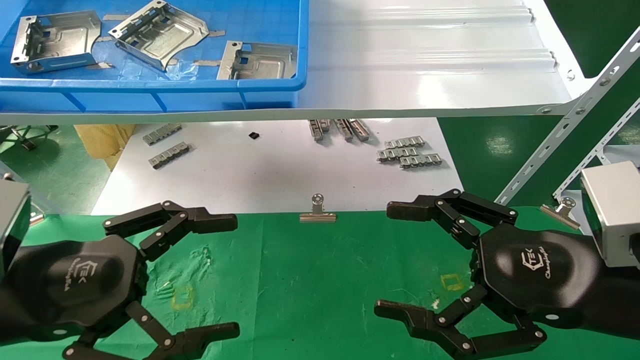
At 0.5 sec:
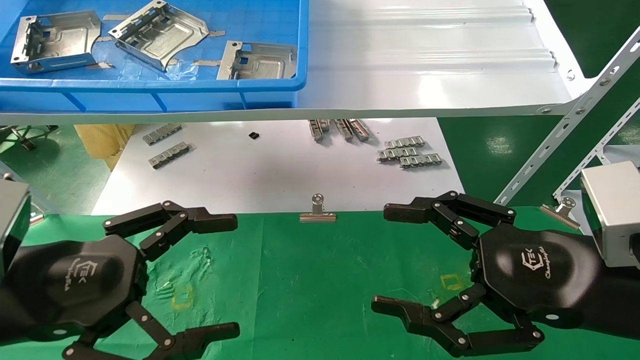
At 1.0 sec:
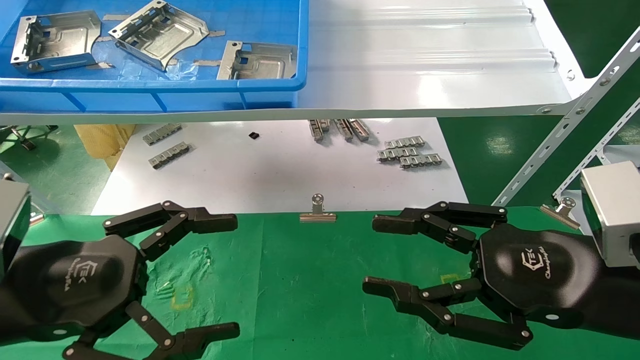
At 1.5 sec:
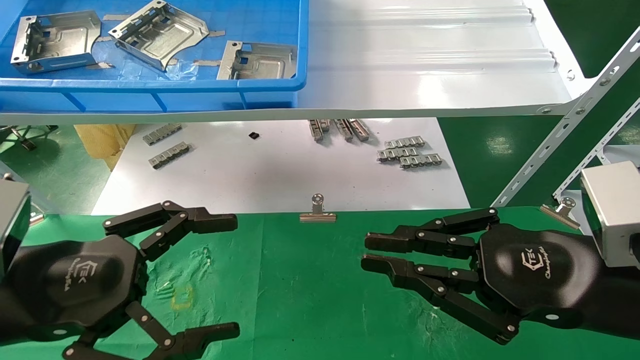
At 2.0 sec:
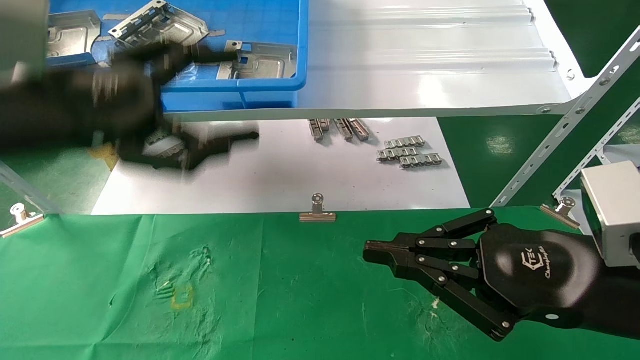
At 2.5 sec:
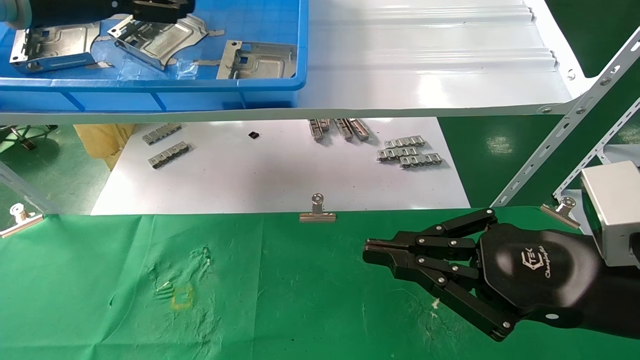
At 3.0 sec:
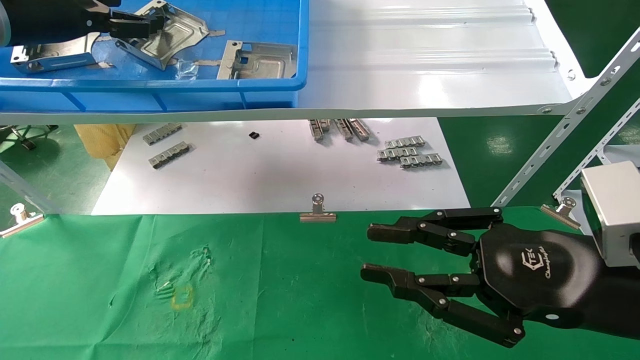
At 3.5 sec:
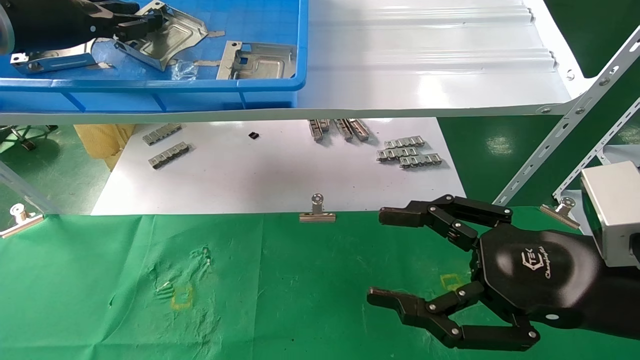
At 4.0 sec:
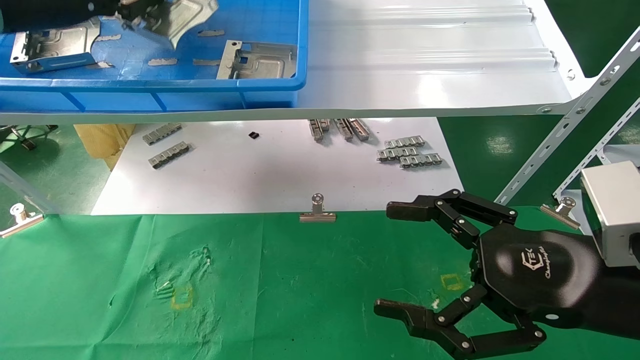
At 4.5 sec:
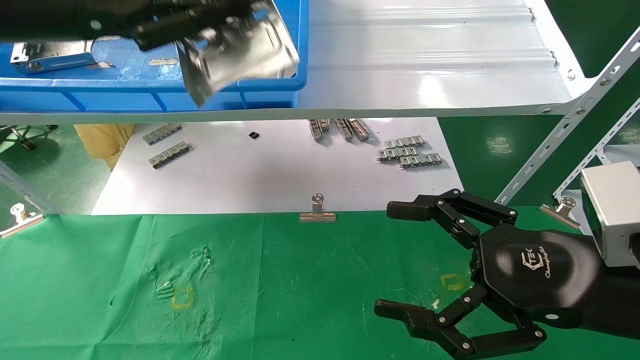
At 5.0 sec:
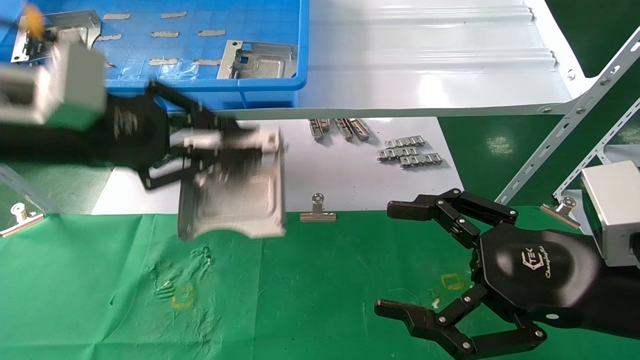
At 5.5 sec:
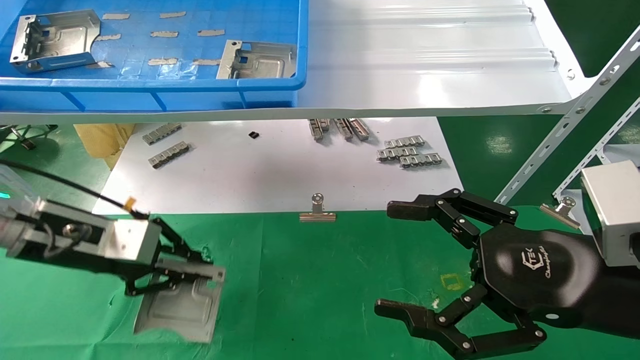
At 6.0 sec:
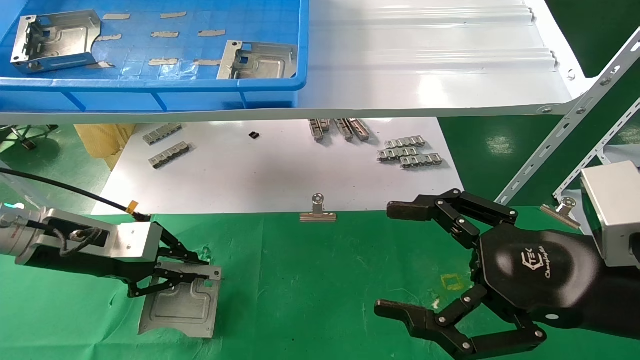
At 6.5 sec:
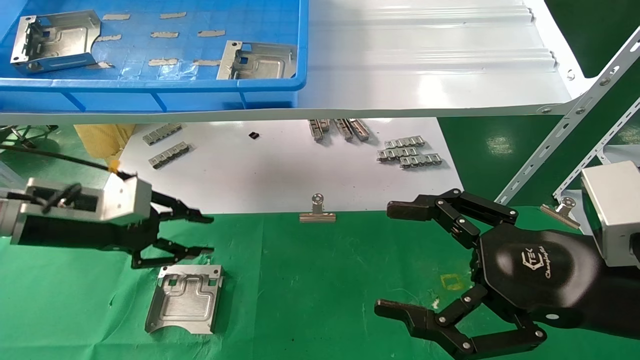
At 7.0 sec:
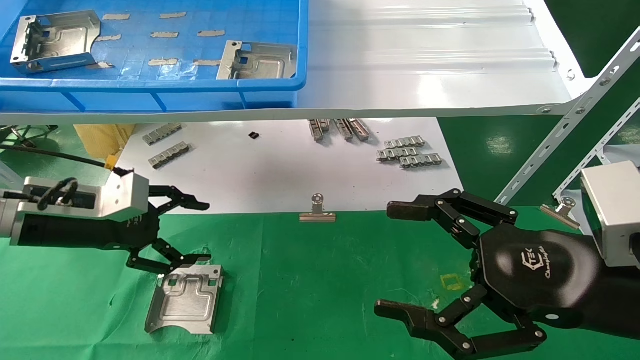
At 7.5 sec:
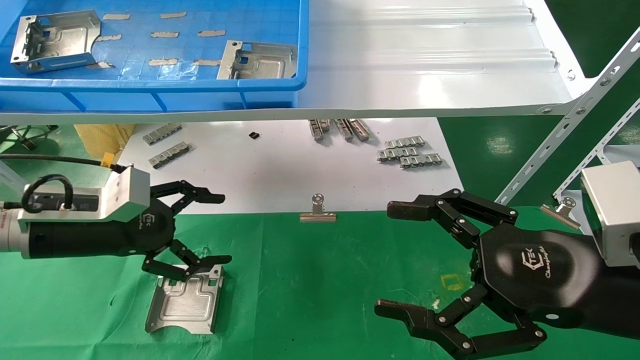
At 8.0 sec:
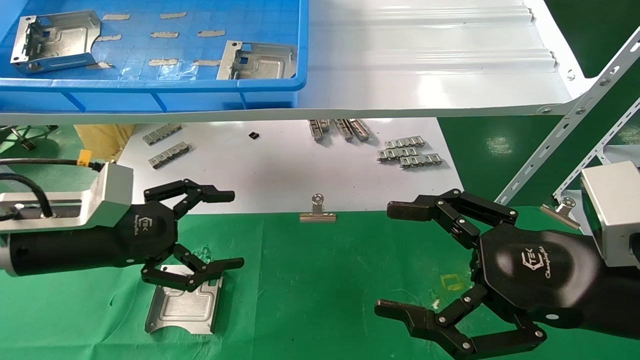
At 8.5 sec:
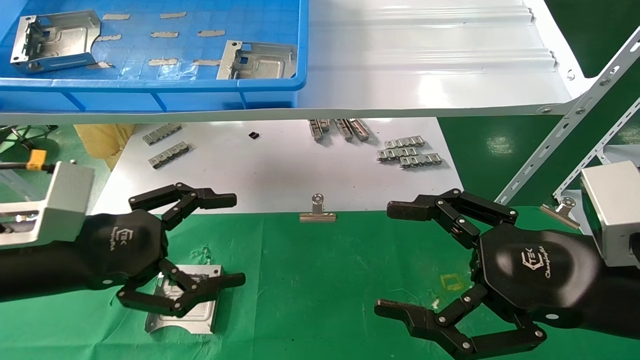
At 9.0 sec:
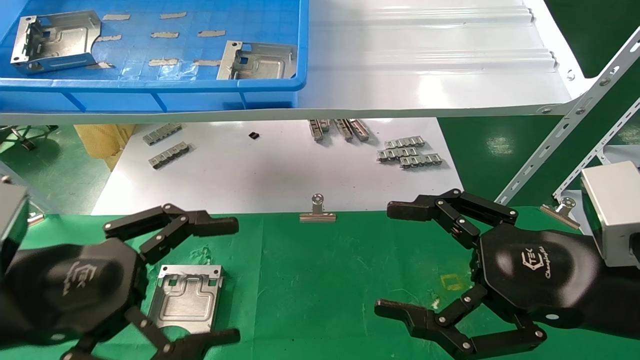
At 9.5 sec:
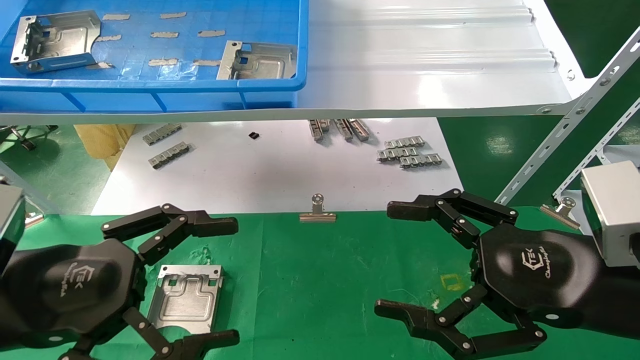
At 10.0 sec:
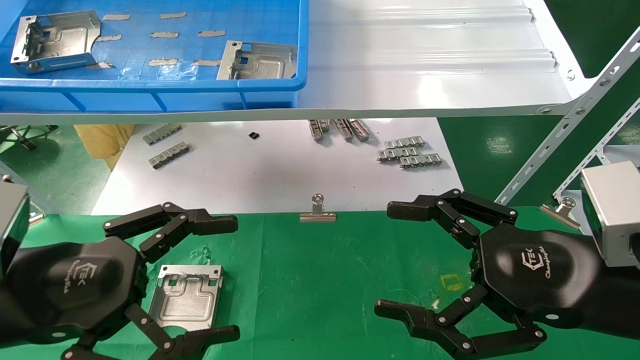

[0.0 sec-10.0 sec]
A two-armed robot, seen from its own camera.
Task of the whole recording: use the mechanical arm to pick up the parts and place them on the table.
Step, 2.0 sec to 3.5 sec: Pick up the hard drive bracket from the feeding area.
Step, 4.0 sec to 6.0 sec: Place the hard drive bracket into the box.
0.0 sec to 2.0 sec: The left gripper heads upward and forward, covering roughly 15 cm, while the right gripper closes.
2.0 sec to 4.0 sec: The right gripper opens up; the left gripper moves forward, upward and to the left, some 15 cm, and closes.
4.0 sec to 6.0 sec: The left gripper heads downward, covering approximately 25 cm.
6.0 sec to 8.0 sec: The left gripper is displaced backward by roughly 5 cm, and opens.
8.0 sec to 10.0 sec: The left gripper heads backward, covering approximately 10 cm.

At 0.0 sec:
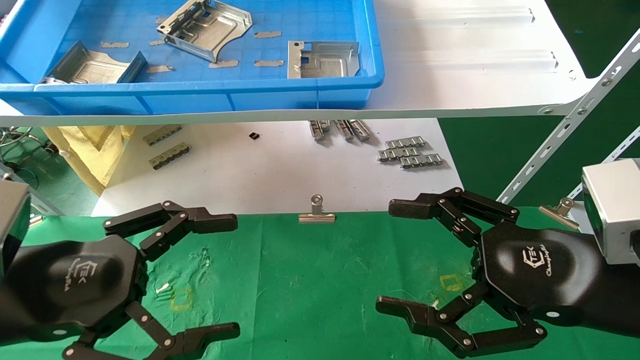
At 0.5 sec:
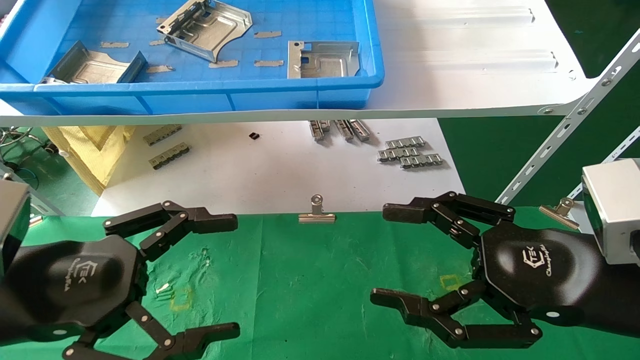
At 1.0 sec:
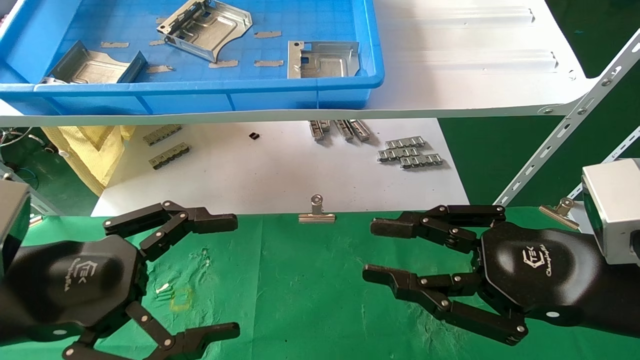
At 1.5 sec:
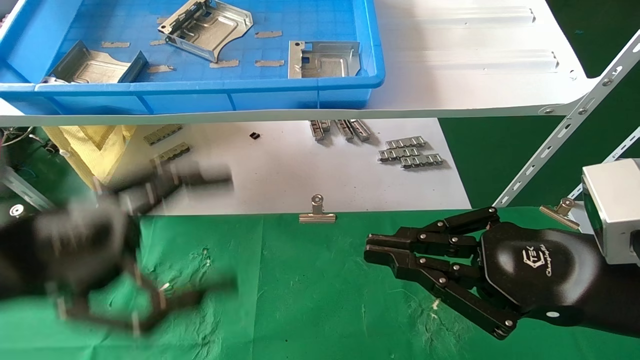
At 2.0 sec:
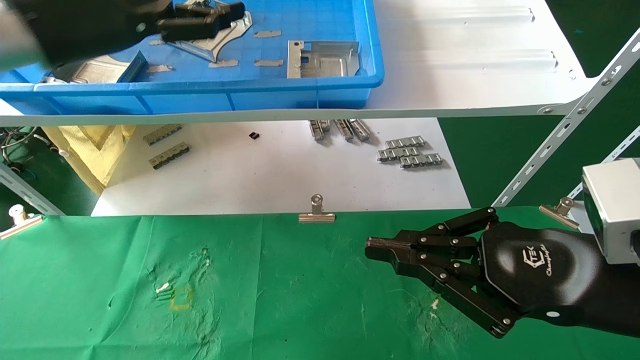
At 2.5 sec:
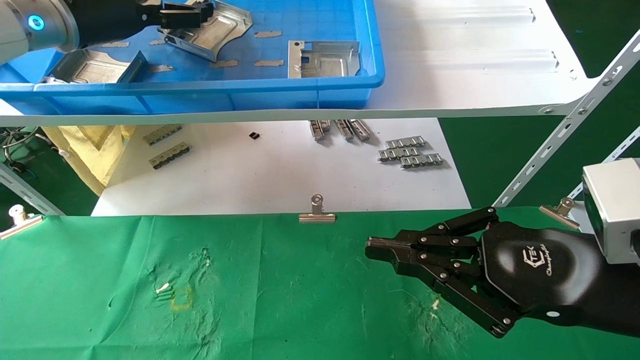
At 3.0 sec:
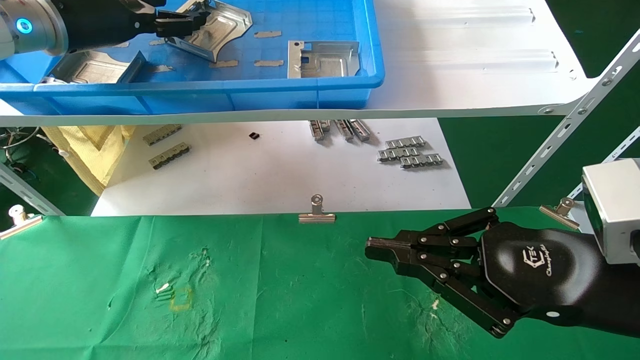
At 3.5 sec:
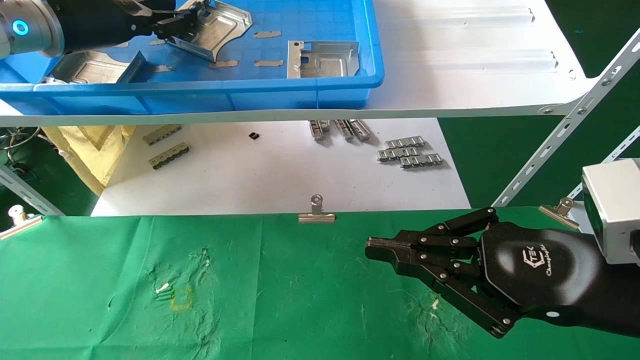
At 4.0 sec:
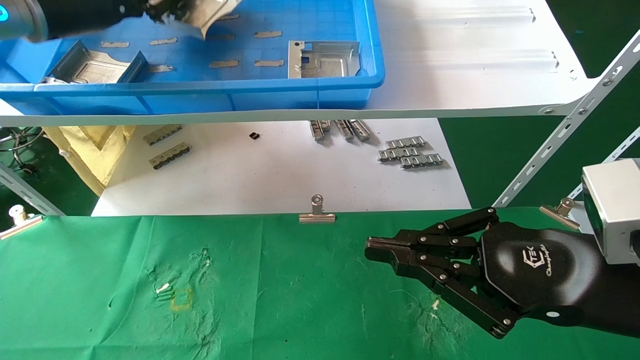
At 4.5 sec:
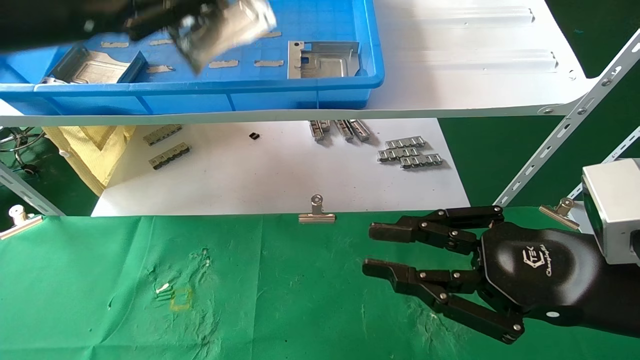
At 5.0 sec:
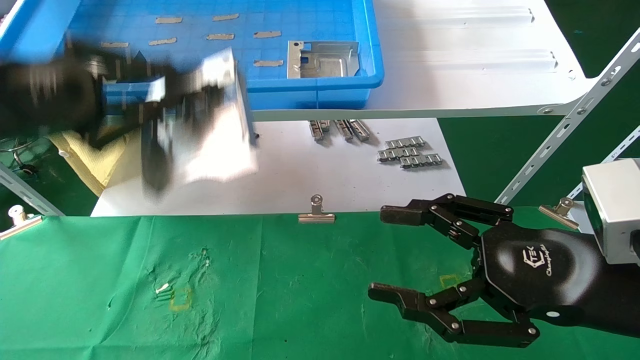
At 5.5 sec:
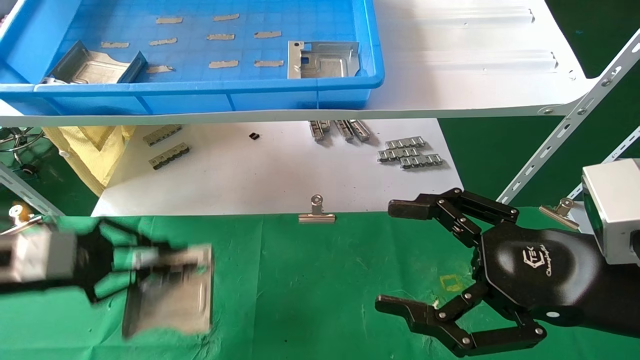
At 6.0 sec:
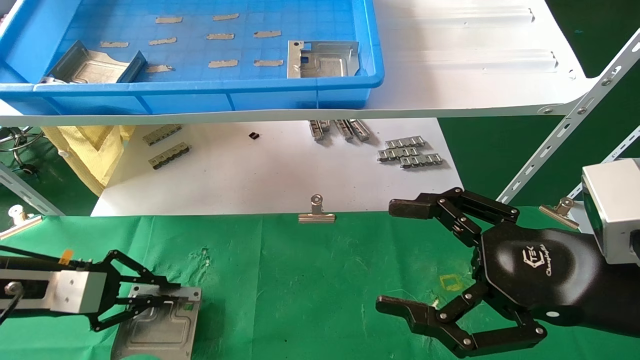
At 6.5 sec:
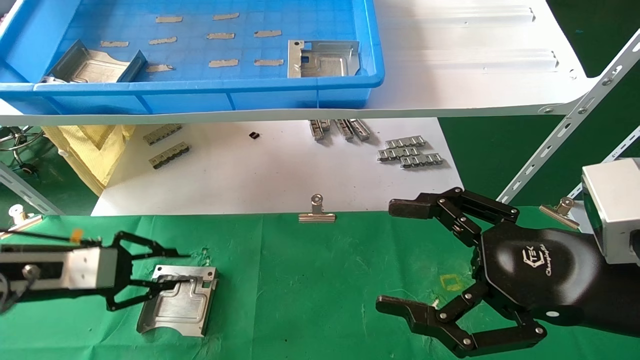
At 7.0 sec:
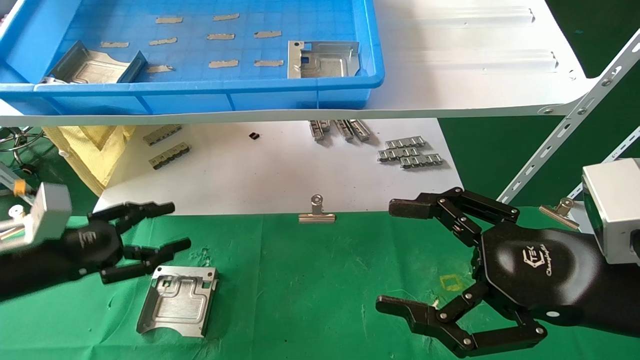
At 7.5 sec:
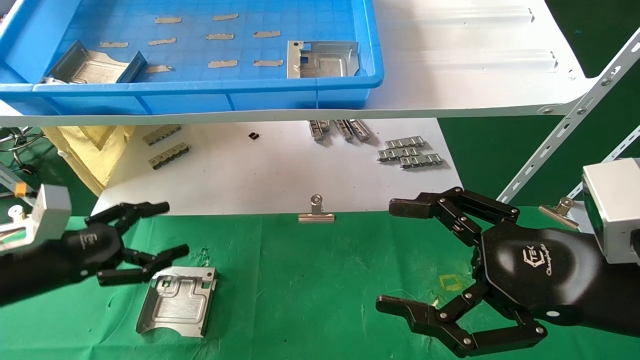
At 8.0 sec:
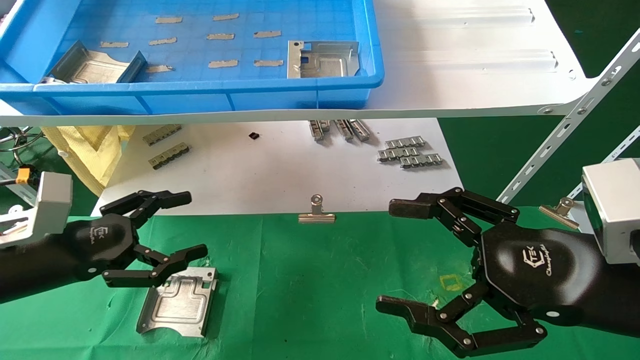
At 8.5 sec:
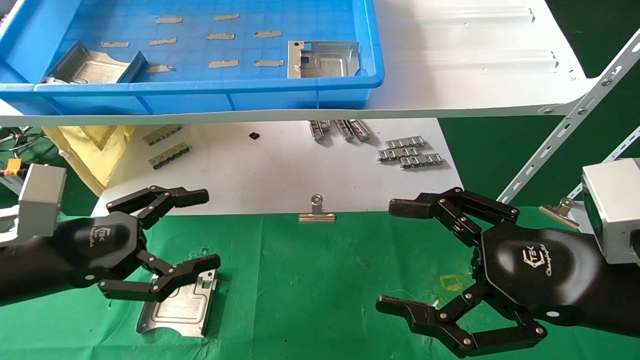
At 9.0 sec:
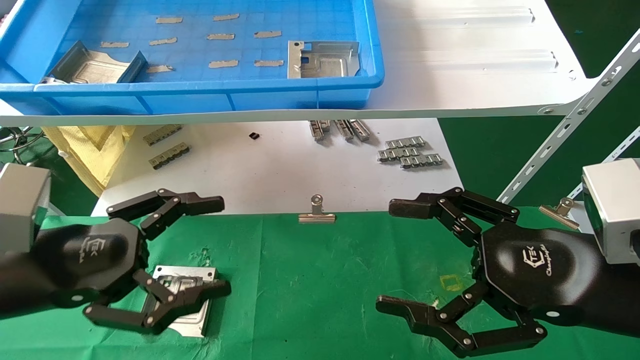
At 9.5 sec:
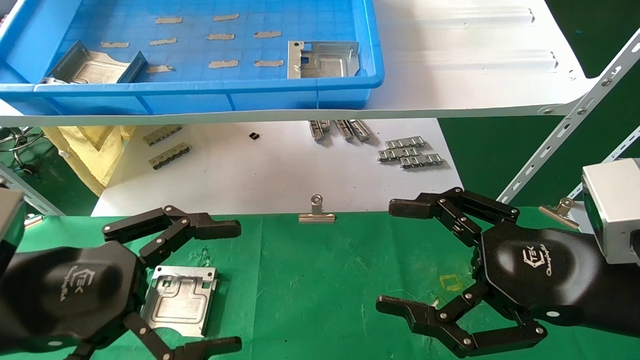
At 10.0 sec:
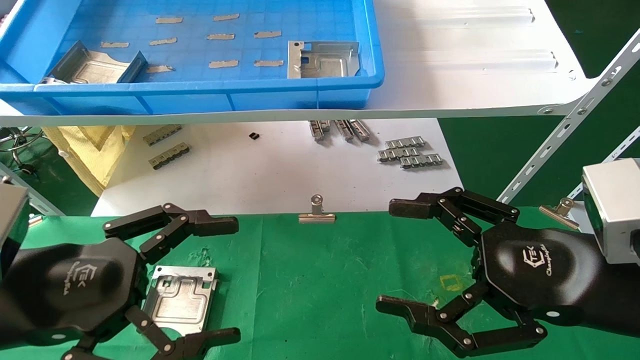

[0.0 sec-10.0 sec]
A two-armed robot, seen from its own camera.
Task of the whole recording: use the mechanical arm to pick up the parts and place them on the table.
Step, 2.0 sec to 3.5 sec: Pick up the hard drive bracket from the feeding area.
Step, 4.0 sec to 6.5 sec: Place the hard drive bracket into the box.
0.0 sec to 2.0 sec: The left gripper travels upward and forward by some 25 cm; the right gripper closes.
2.0 sec to 4.0 sec: The left gripper changes place by some 5 cm, and closes.
4.0 sec to 6.0 sec: The right gripper opens its fingers; the left gripper heads downward, covering some 30 cm.
6.0 sec to 8.0 sec: The left gripper ends up approximately 5 cm from where it was, and opens.
8.0 sec to 10.0 sec: The left gripper travels backward and to the right by some 15 cm.
